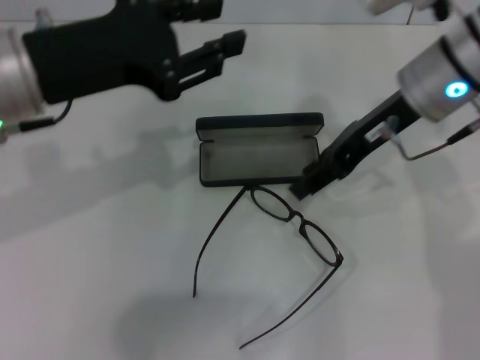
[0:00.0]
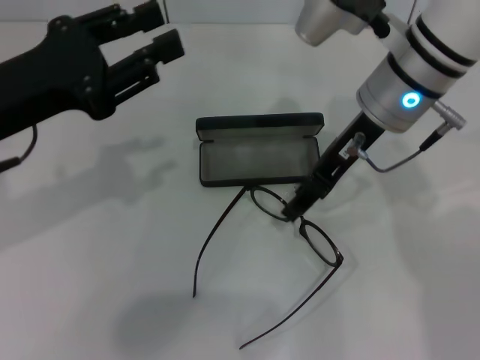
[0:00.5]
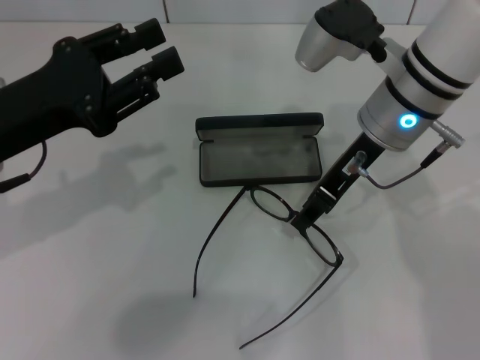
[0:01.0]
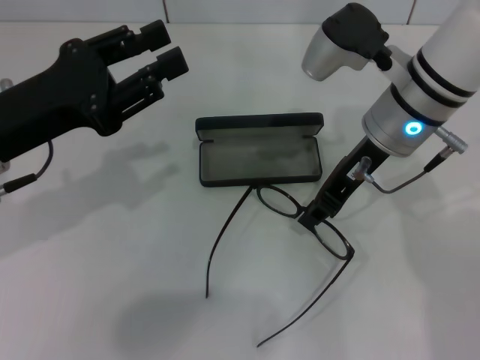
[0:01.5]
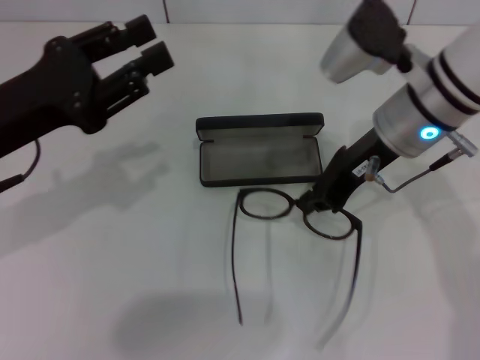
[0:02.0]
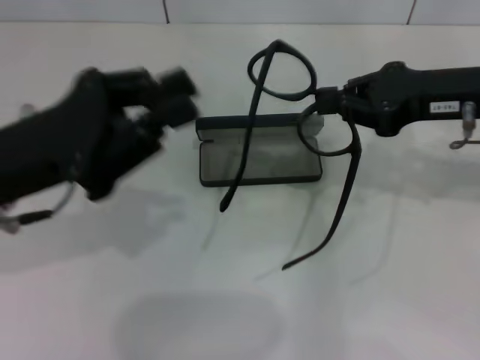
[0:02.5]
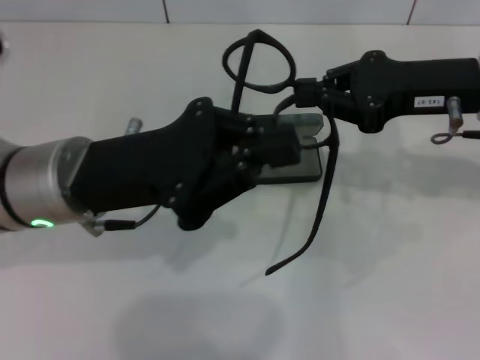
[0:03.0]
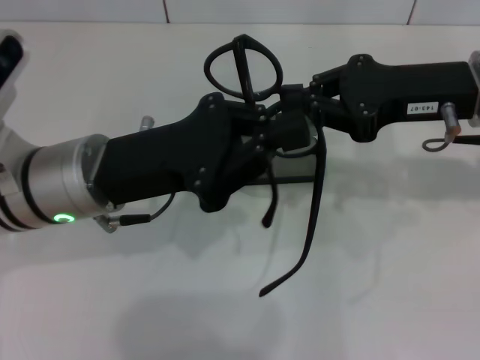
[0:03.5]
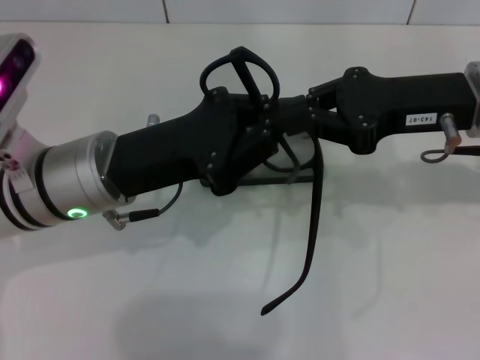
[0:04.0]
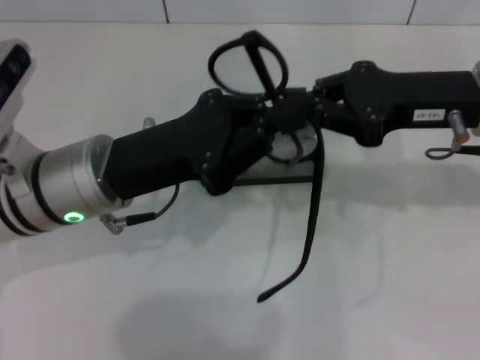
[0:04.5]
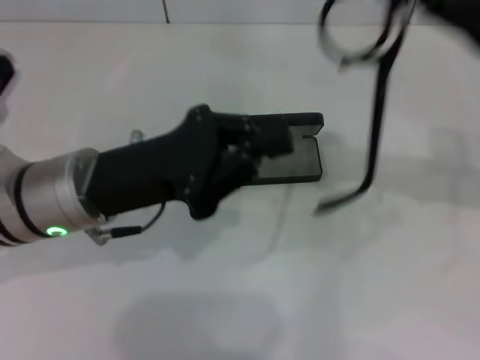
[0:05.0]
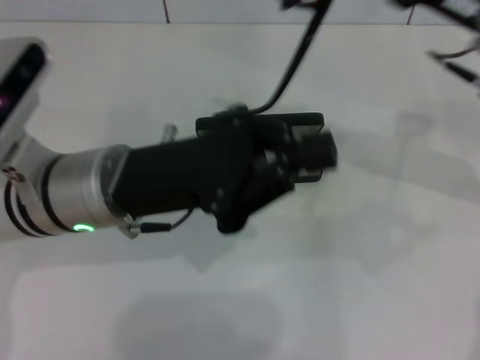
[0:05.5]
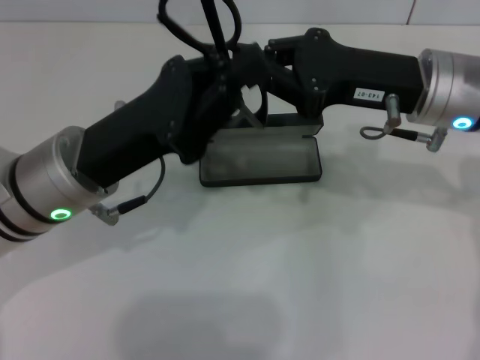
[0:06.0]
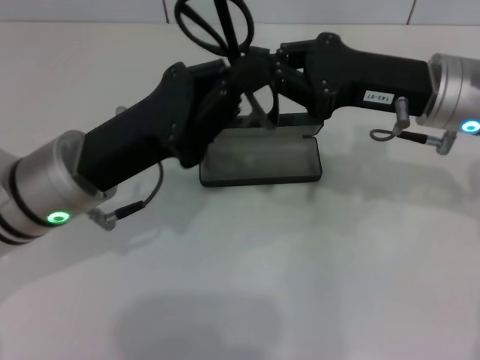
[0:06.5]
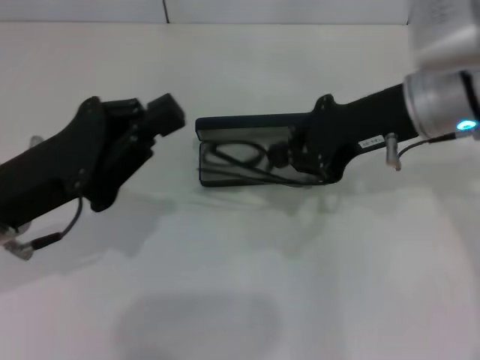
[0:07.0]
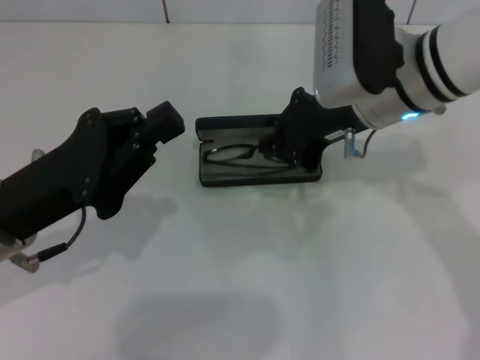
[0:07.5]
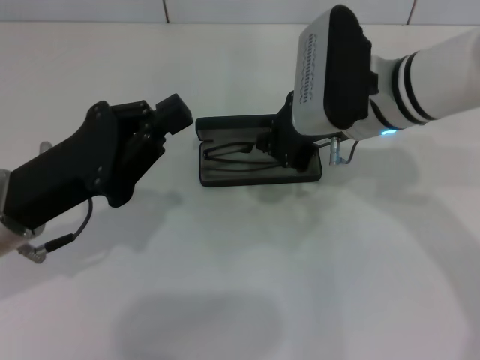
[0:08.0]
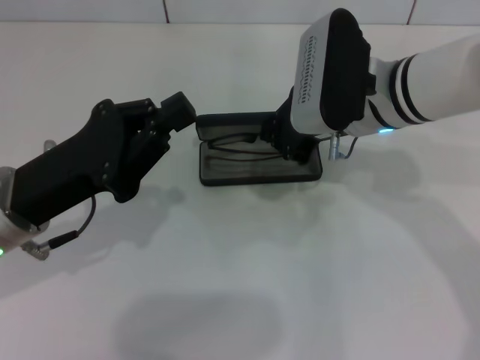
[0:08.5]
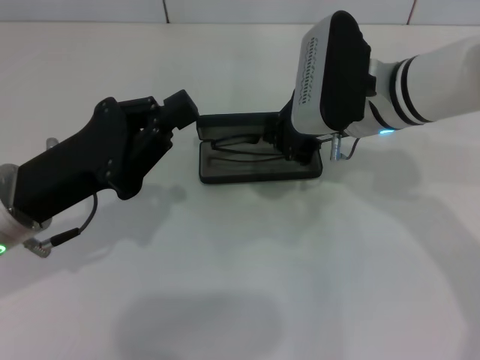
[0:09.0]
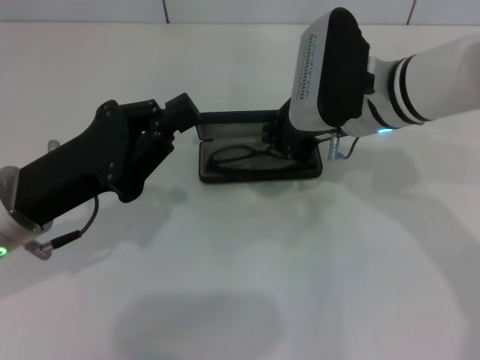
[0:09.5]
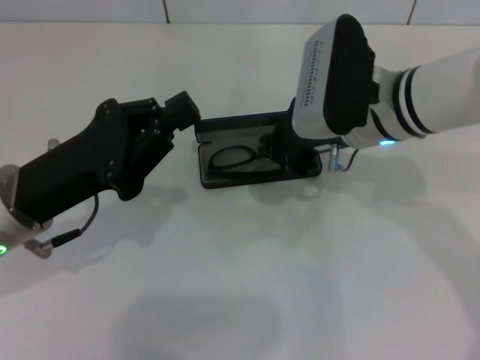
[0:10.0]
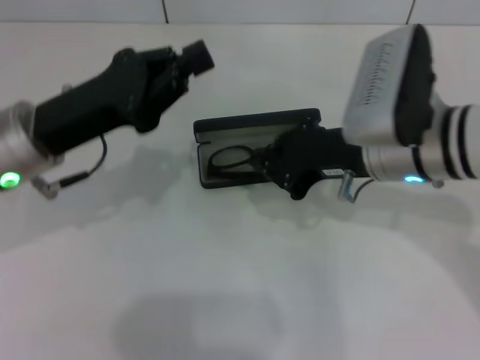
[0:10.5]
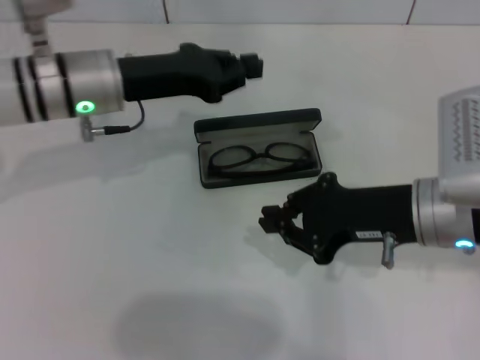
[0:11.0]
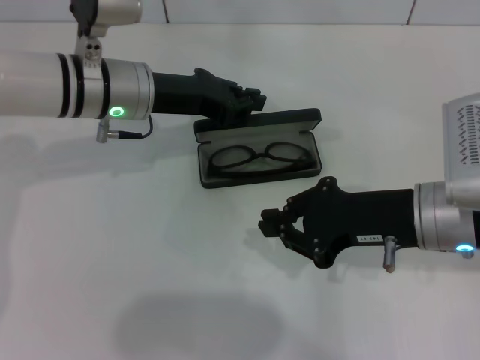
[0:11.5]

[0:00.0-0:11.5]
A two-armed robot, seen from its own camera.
Step, 0:02.0 to 0:06.0: Fold the frame with your left hand.
Step, 0:06.5 to 0:09.5: Put the glasses into the case with your right hand.
0:00.0 to 0:02.0: The right gripper closes up. The left gripper is displaced downward and to the left by about 10 cm.
0:02.0 to 0:04.0: Both grippers travel together to the right, some 10 cm. The left gripper closes its fingers.
0:06.0 to 0:07.5: Both grippers travel together to the left, approximately 5 cm.
0:07.5 to 0:09.5: The grippers stay close to where they were, moving slightly.
0:09.5 to 0:11.5: The right gripper moves backward and to the right, some 10 cm. Meanwhile the left gripper is displaced forward and to the right by approximately 15 cm.

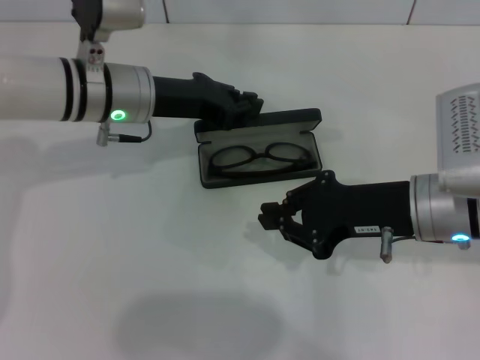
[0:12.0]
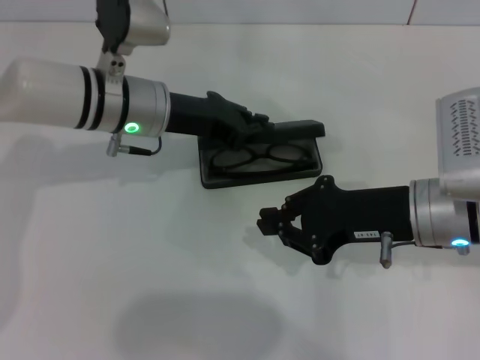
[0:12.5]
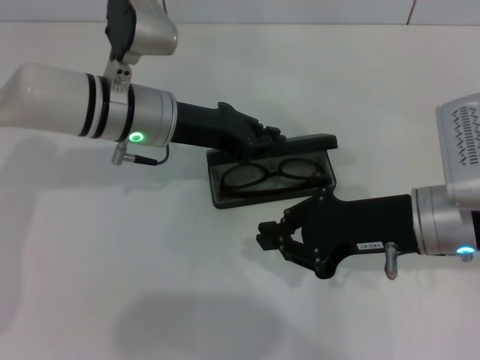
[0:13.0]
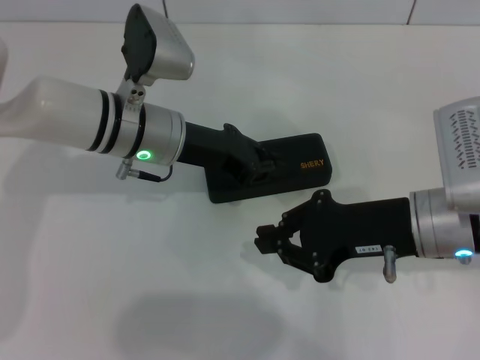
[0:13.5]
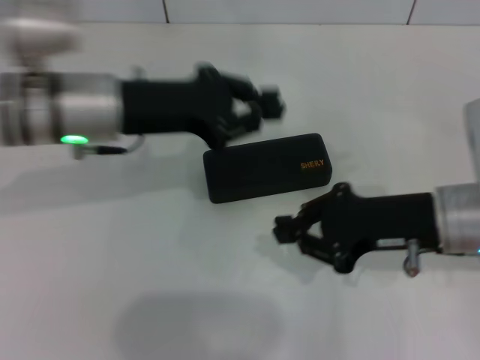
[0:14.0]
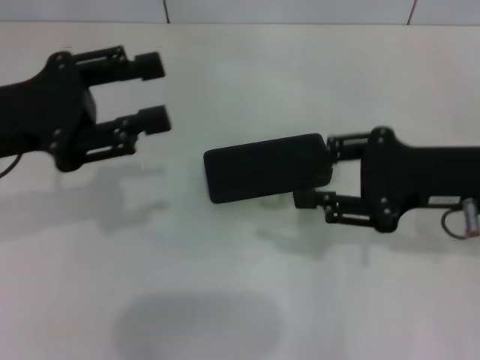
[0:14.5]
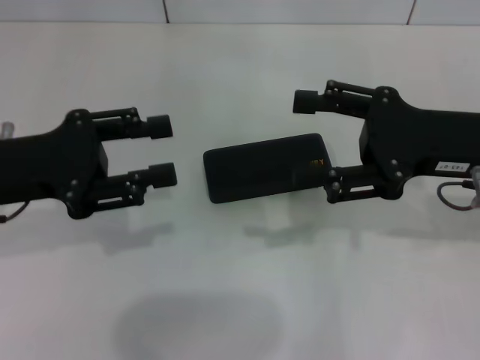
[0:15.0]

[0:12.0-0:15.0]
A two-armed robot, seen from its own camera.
0:13.5 to 0:15.0: The left gripper goes approximately 20 cm to the left and backward, and opens up. The right gripper travels upward by approximately 5 cm, and opens.
